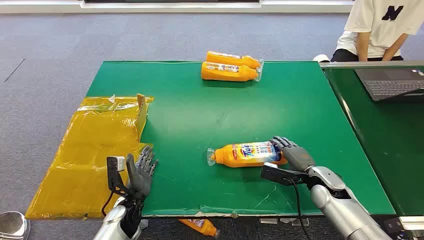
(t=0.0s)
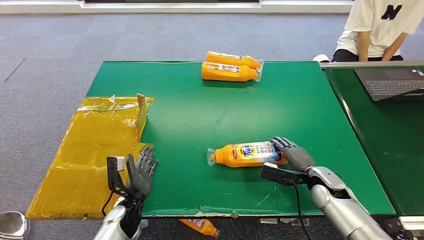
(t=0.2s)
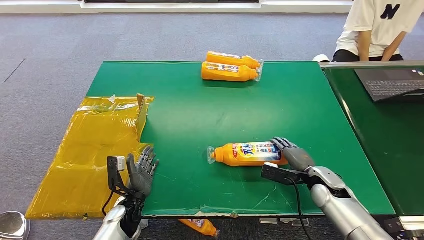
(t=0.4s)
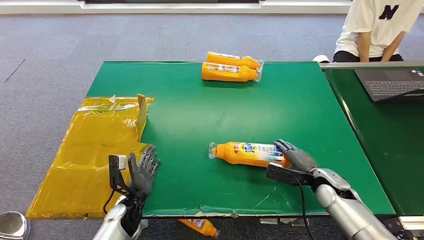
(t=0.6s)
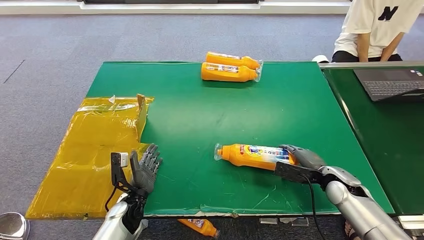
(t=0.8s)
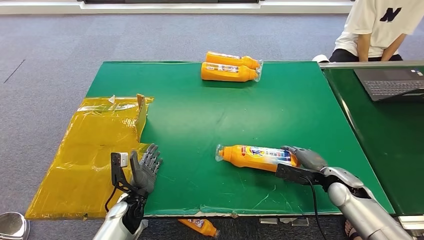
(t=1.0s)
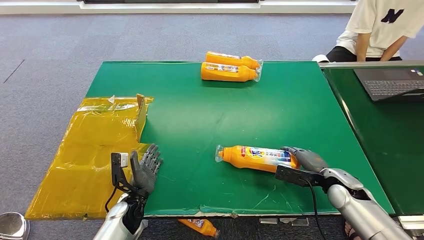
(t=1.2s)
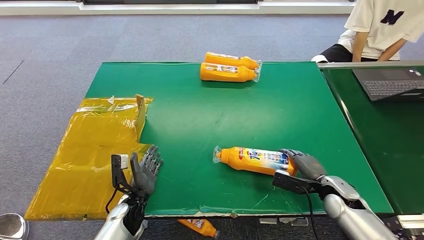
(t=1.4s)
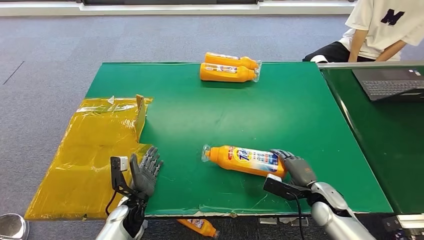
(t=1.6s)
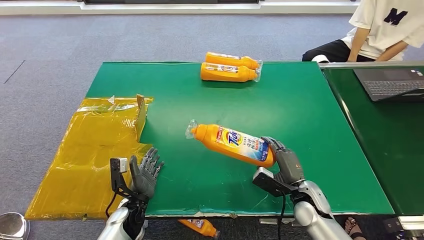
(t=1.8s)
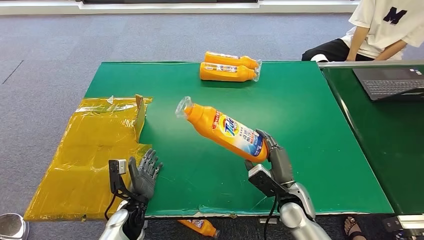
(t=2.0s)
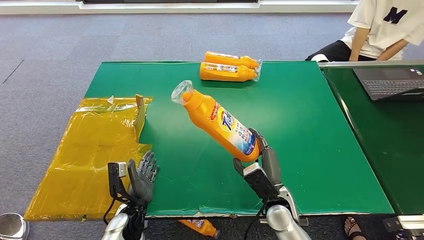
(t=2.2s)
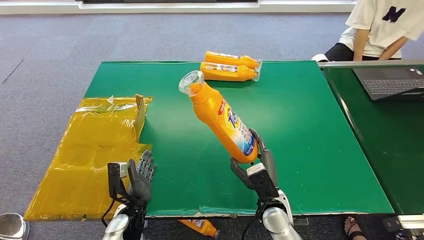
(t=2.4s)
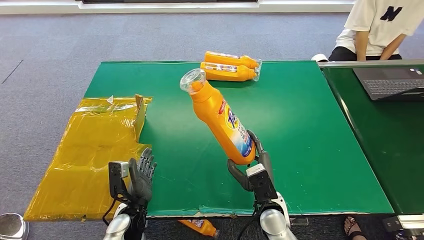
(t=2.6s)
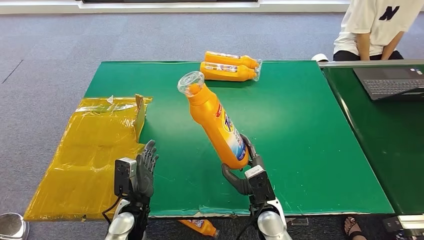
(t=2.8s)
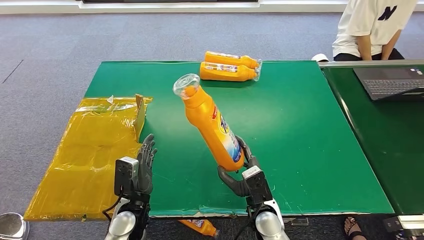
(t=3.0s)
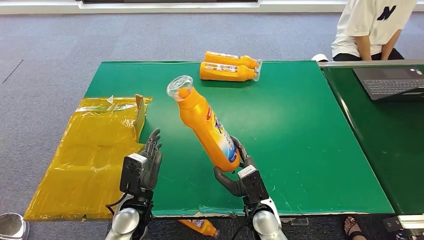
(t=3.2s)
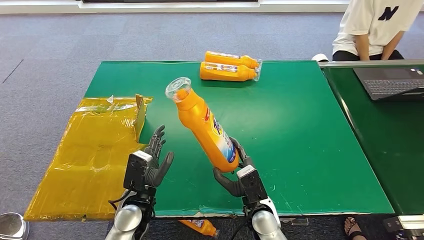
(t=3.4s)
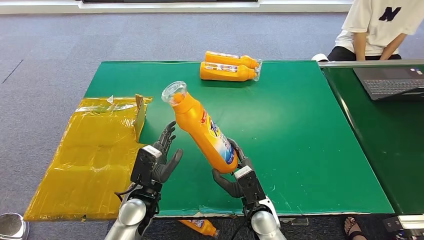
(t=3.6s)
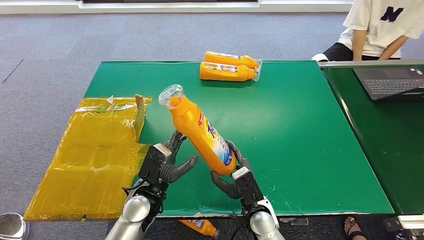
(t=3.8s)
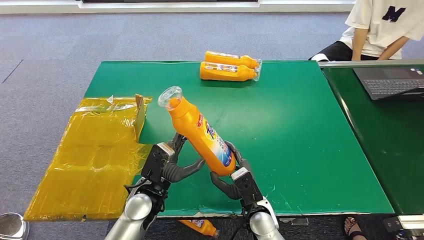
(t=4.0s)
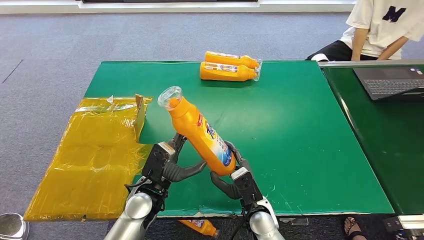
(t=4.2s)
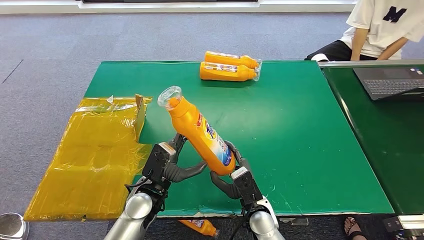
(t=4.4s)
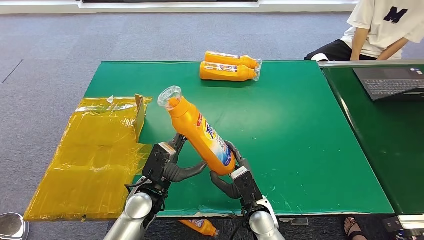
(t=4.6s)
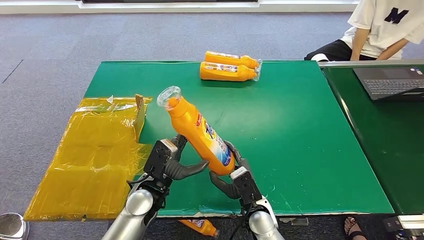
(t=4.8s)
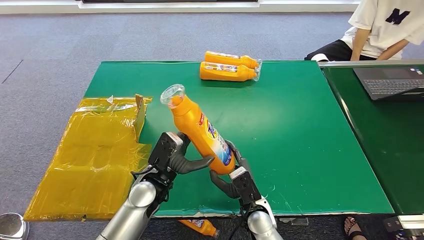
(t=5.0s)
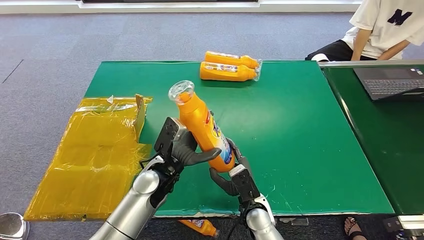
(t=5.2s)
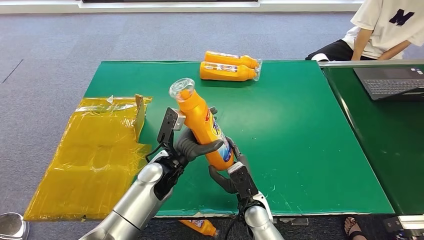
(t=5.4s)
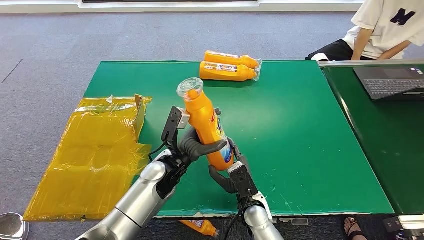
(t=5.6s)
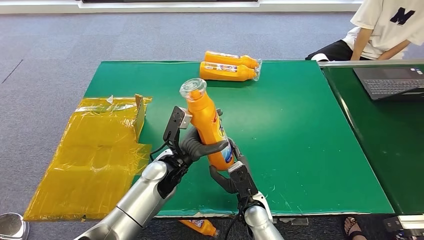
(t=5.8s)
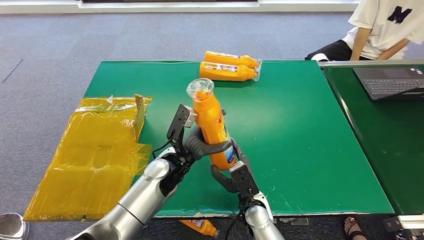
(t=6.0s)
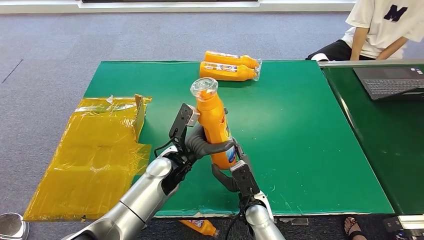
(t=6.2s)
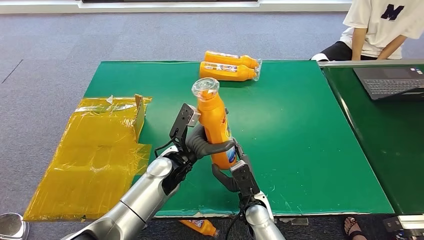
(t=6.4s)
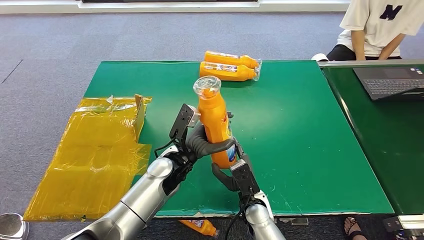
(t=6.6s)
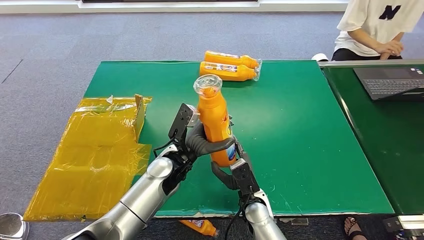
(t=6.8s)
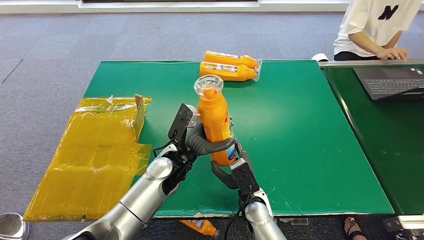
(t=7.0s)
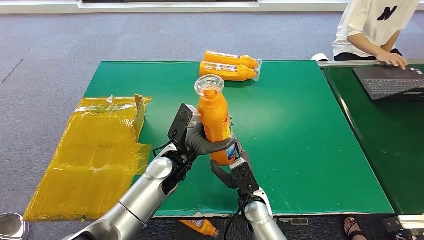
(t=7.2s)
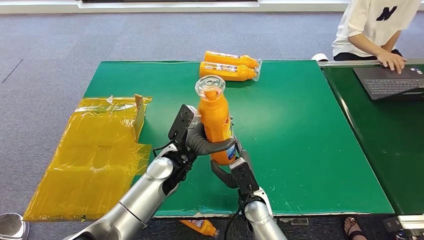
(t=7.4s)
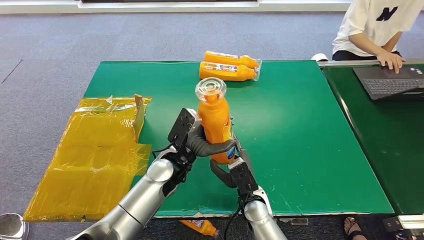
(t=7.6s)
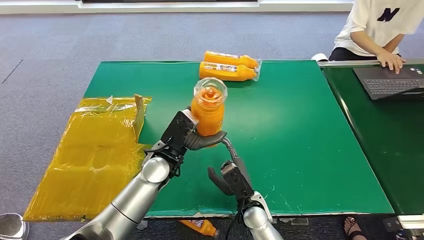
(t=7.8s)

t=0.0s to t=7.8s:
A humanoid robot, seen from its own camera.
Step, t=0.0s to t=1.8s: Pick up the bottle from the table.
Step, t=3.2s to t=7.6s: Turn the bottle to the front side.
t=1.6s to t=3.2s: The right hand heads to the left, covering some 20 cm, while the left hand shifts approximately 10 cm upward.
t=3.2s to t=4.6s: The left hand changes place by some 5 cm.
t=4.6s to t=6.2s: The left hand goes roughly 10 cm forward and to the right.
